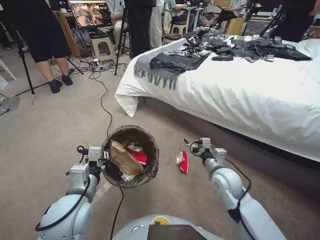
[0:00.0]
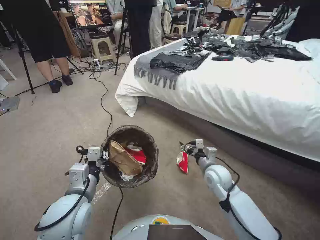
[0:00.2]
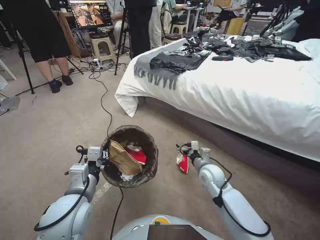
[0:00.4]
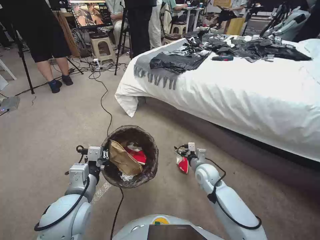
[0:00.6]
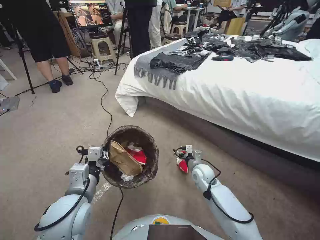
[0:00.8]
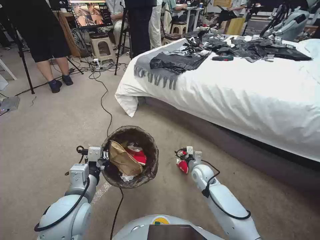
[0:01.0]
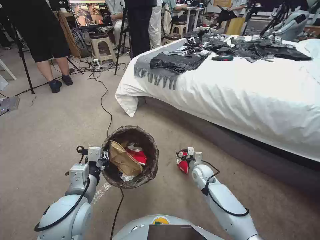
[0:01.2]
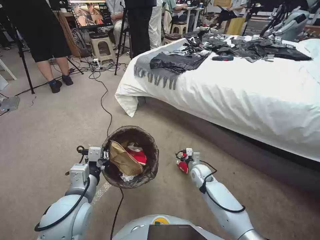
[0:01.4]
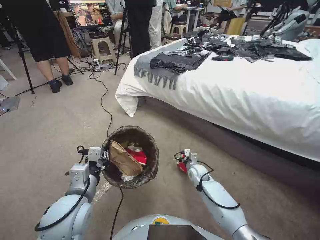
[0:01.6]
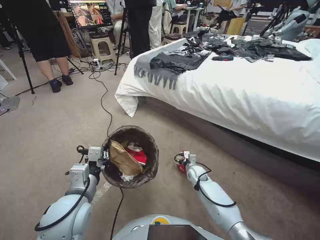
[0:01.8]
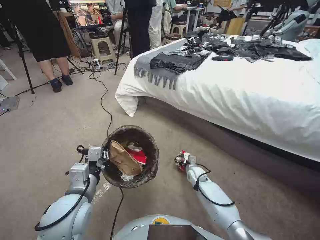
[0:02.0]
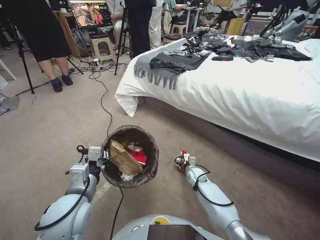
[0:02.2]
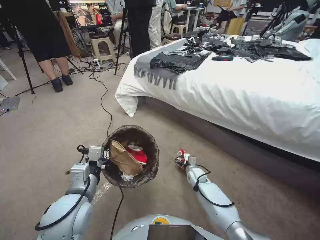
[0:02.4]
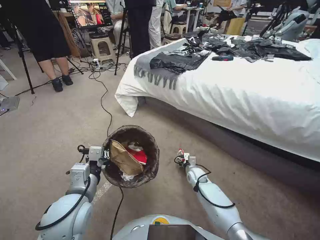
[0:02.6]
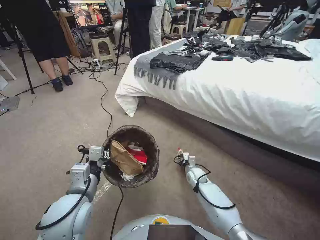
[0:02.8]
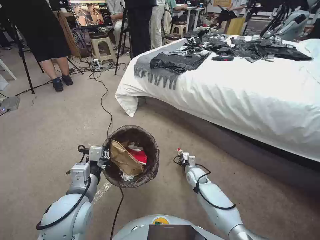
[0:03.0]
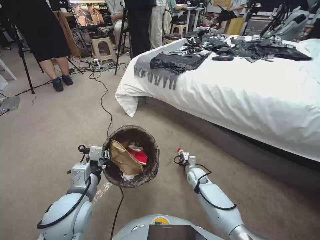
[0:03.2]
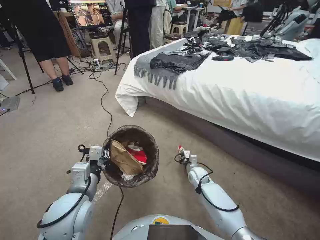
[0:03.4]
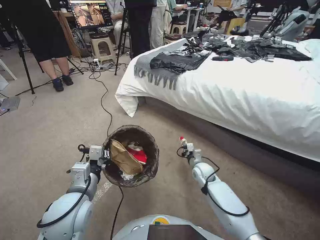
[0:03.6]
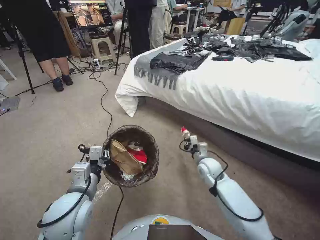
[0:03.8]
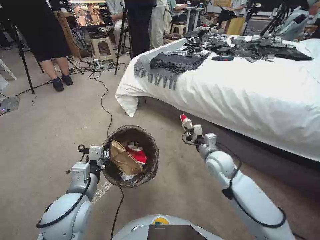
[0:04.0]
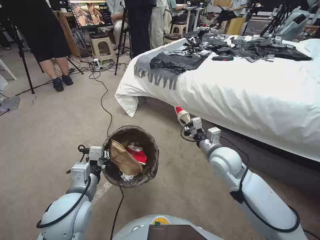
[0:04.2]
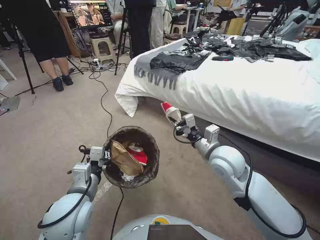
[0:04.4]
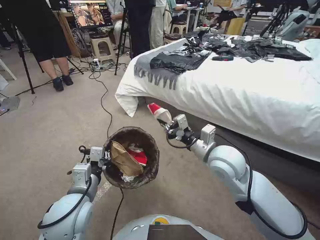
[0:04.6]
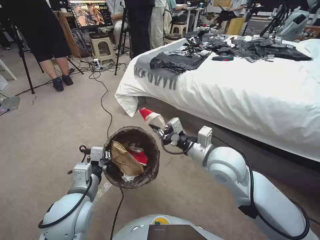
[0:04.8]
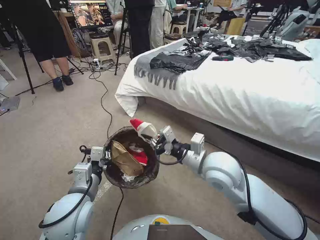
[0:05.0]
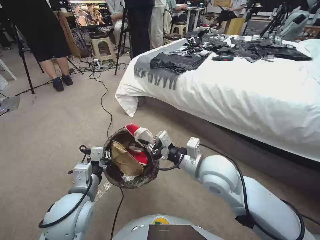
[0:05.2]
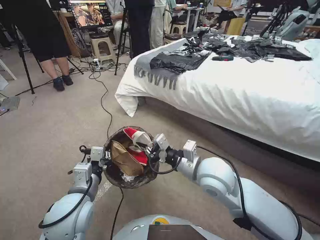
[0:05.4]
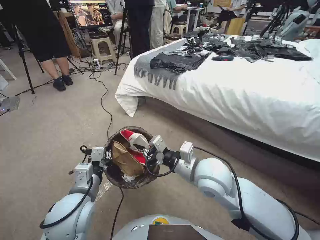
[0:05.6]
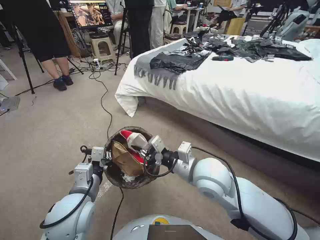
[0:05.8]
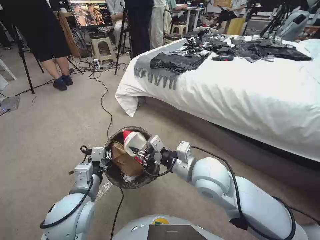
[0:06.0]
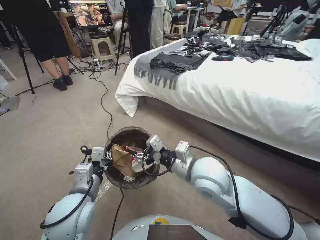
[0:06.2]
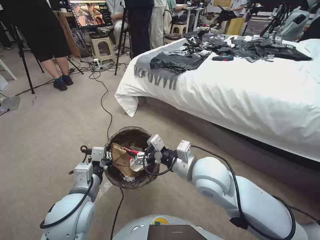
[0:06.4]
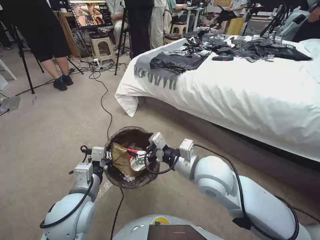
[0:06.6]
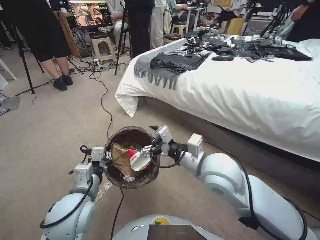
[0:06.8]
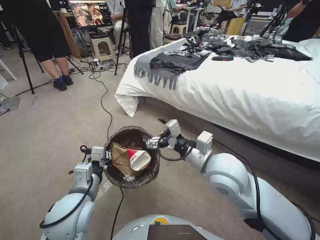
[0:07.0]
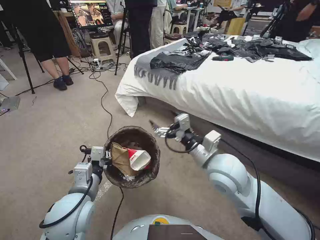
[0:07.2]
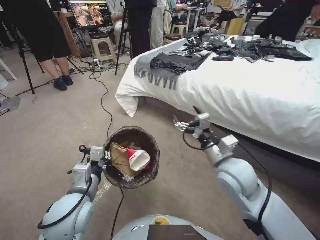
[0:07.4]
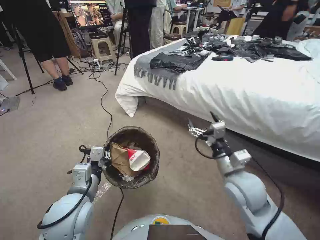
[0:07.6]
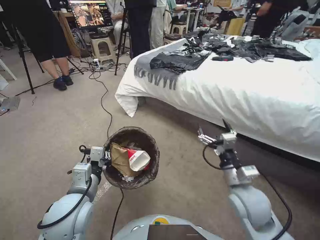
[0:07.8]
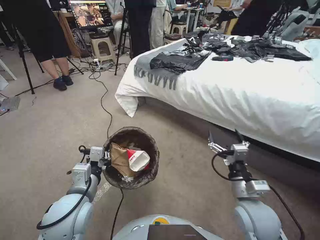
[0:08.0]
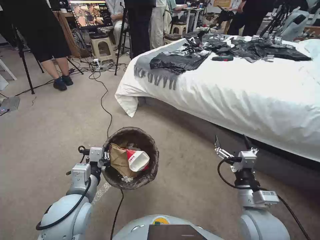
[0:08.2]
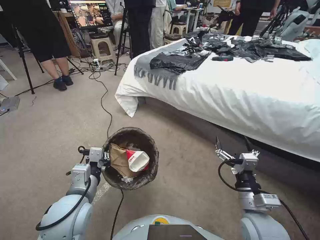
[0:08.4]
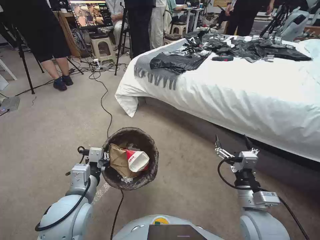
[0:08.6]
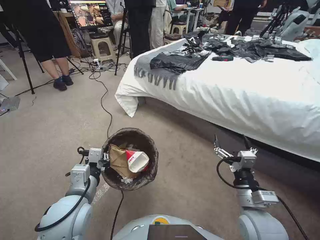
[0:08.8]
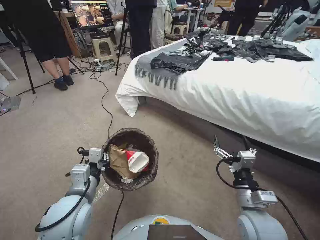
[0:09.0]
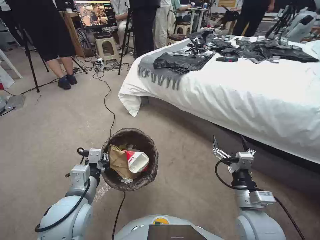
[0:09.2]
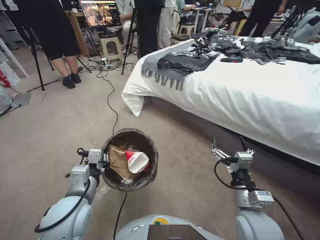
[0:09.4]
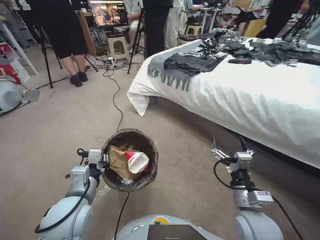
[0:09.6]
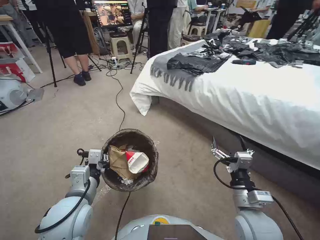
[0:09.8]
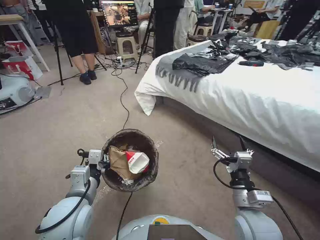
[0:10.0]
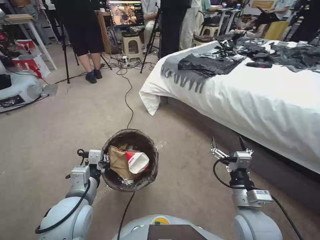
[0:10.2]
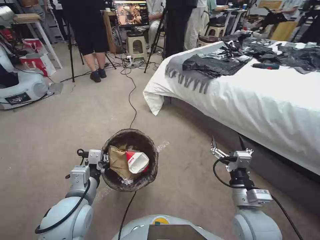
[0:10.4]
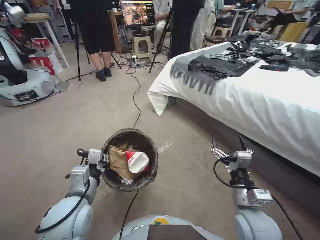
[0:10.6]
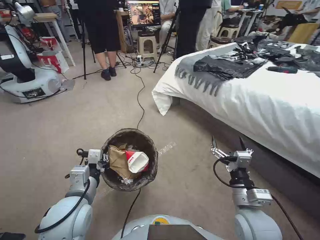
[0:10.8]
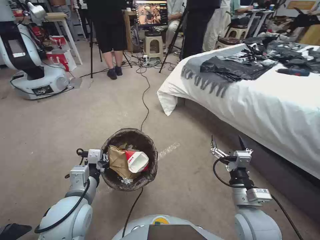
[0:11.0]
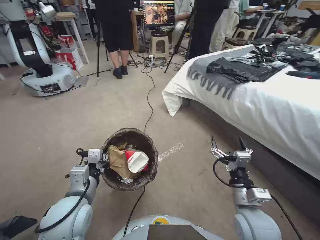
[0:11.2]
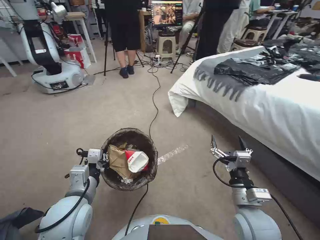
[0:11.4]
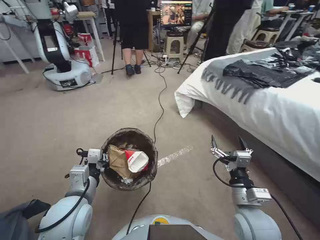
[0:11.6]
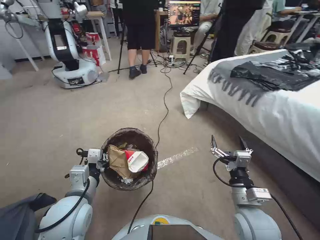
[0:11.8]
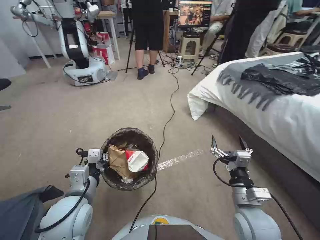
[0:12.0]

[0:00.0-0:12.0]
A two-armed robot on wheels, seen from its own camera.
Task of the whole recording: Pick up the trash bin, then pick up the garbage from the floor and place it into the trash bin.
0:00.0 to 0:01.6: The right gripper heads downward and forward, covering roughly 20 cm.
0:01.6 to 0:03.0: The right gripper closes up.
0:03.0 to 0:04.4: The right gripper travels upward by approximately 30 cm.
0:04.4 to 0:06.0: The right gripper travels to the left and backward by roughly 10 cm.
0:06.0 to 0:07.6: The right gripper heads to the right, covering some 10 cm, and opens up.
0:07.6 to 0:09.0: The right gripper heads backward and downward, covering approximately 10 cm.

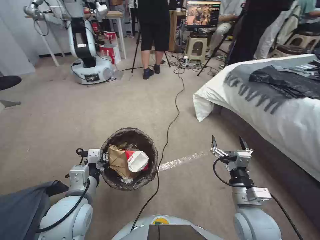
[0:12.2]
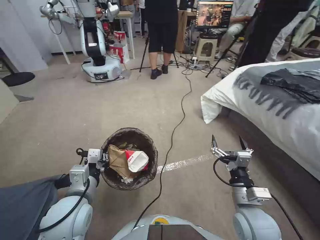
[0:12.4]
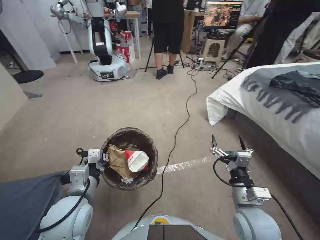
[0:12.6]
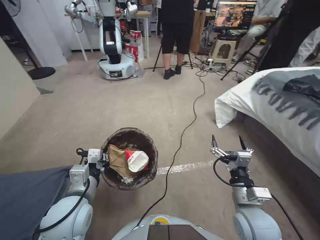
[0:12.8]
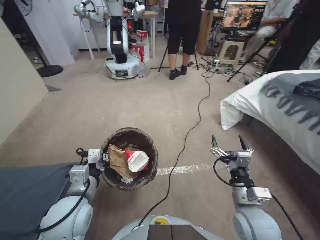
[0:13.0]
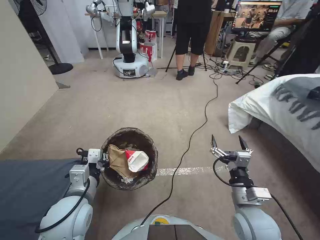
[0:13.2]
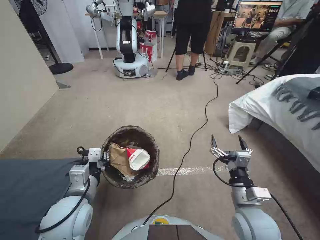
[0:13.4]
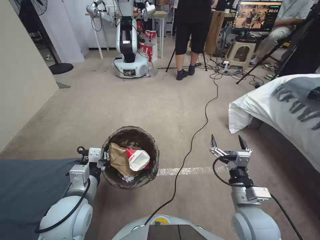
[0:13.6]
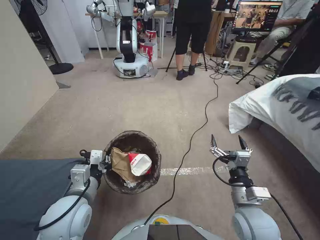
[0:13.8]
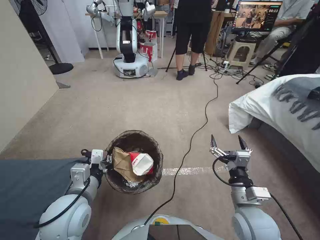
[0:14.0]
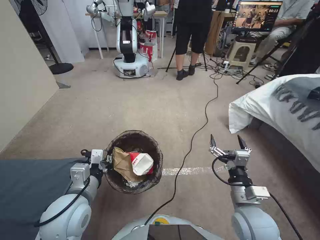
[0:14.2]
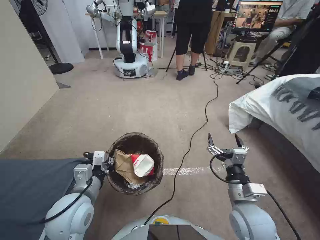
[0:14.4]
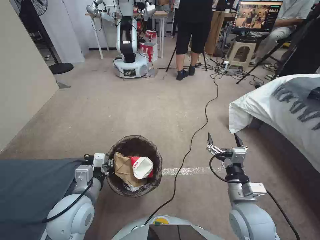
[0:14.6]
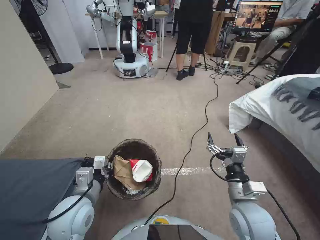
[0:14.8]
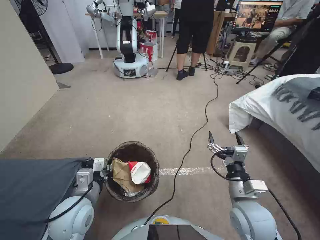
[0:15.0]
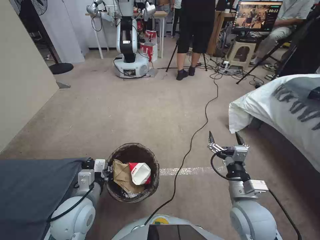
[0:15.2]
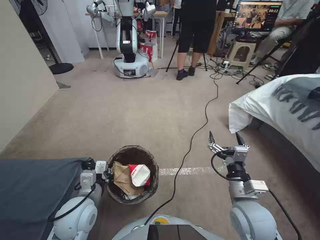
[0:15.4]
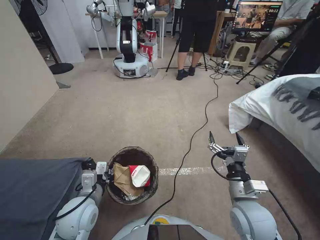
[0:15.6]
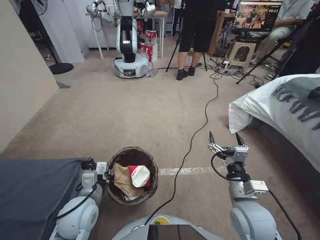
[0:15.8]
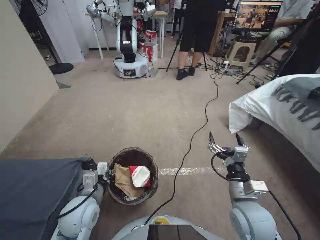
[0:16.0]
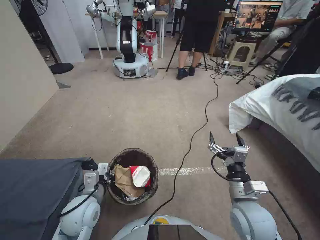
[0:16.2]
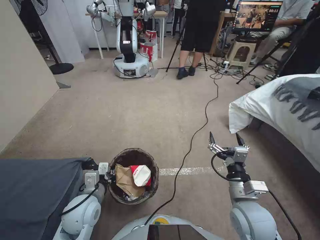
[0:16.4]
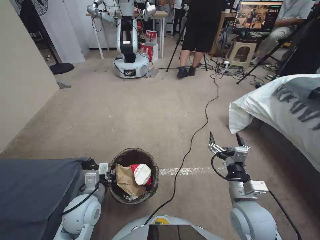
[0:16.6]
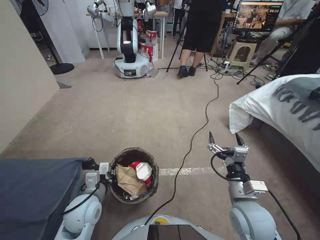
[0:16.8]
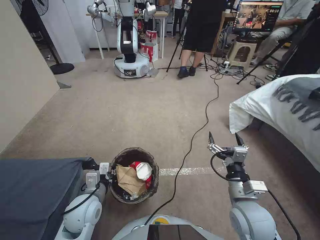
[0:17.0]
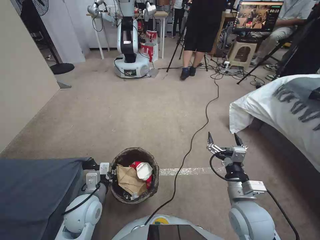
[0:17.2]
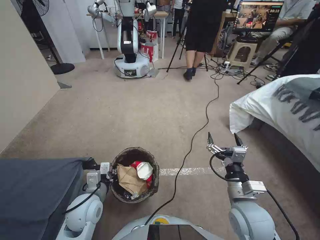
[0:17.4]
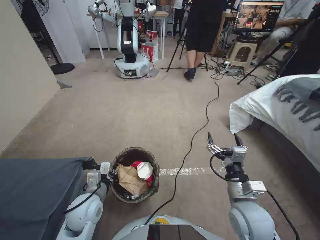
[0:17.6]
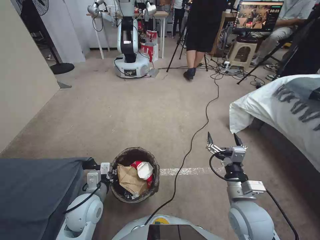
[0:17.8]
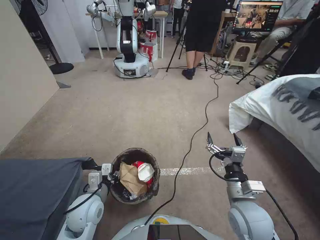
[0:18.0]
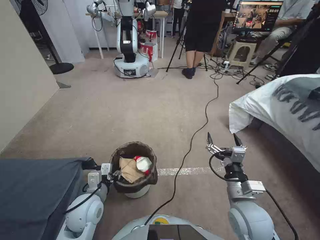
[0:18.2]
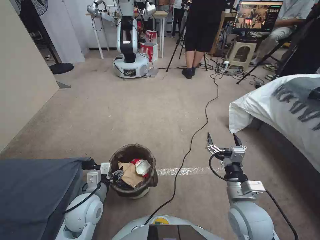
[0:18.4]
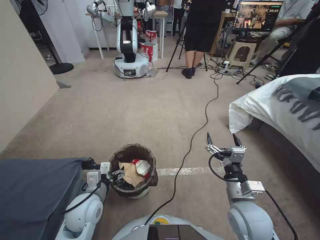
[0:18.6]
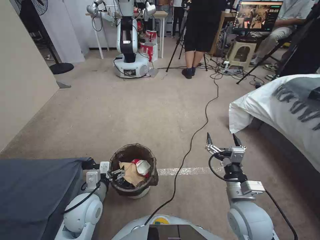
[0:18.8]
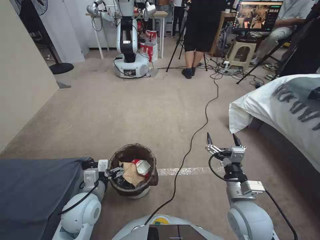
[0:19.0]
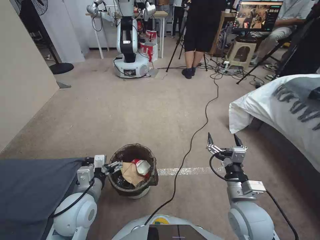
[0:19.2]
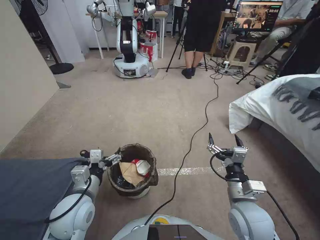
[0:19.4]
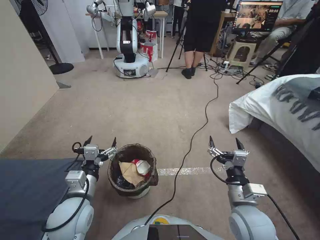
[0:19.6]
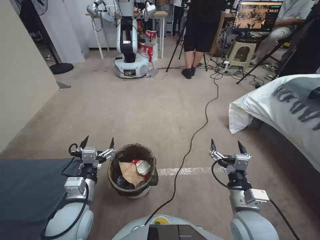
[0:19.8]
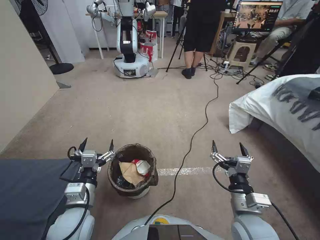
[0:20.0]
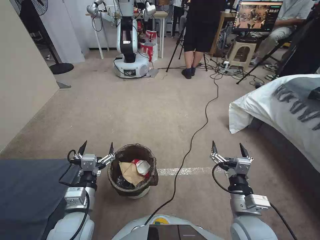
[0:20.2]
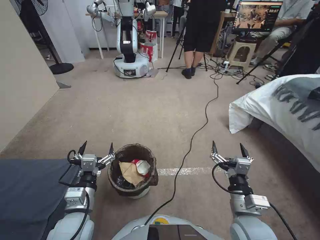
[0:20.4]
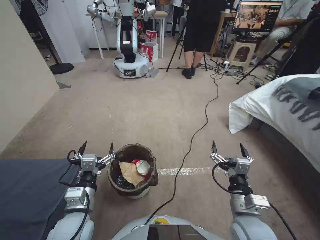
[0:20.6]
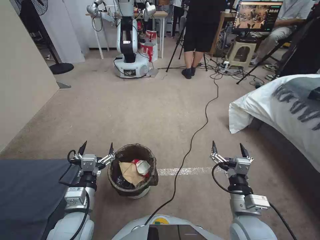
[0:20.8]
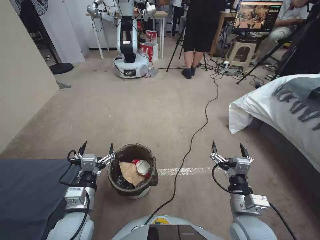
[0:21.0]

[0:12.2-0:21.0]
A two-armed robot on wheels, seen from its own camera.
Task of the whole recording: Pick up the trash bin, then pick up the garbage from the floor and place it into the trash bin.
0:13.6 to 0:15.2: There are only small adjustments of the grippers.
0:15.2 to 0:16.6: The grippers stay close to where they were, moving slightly.
0:16.6 to 0:18.0: The two grippers keep their place.
0:18.0 to 0:19.6: The left gripper travels upward by roughly 5 cm, and opens its fingers.
0:19.6 to 0:21.0: The grippers move only a little.
